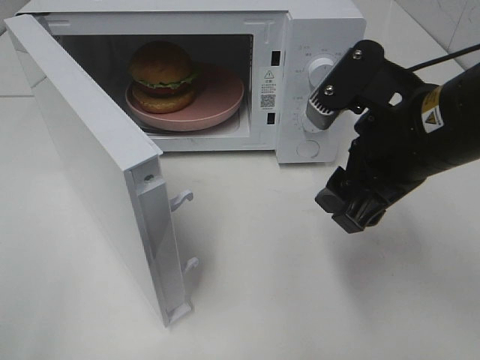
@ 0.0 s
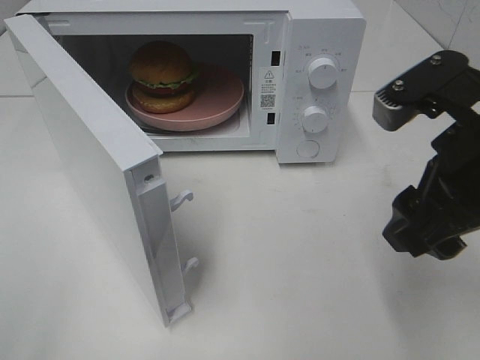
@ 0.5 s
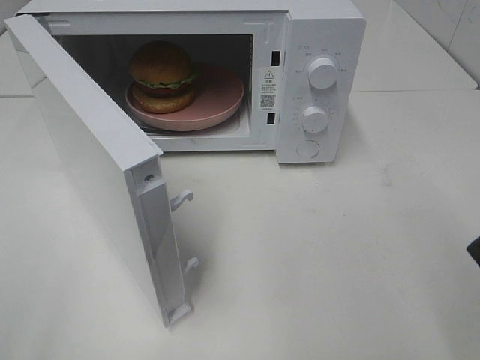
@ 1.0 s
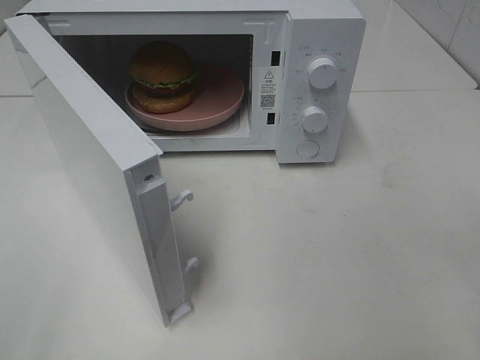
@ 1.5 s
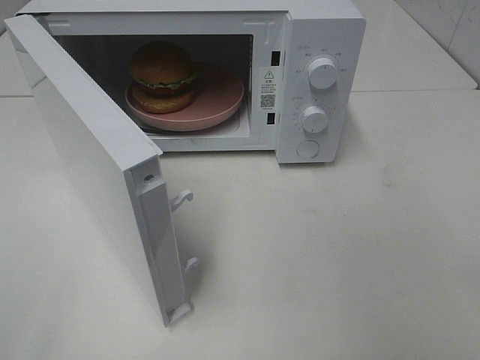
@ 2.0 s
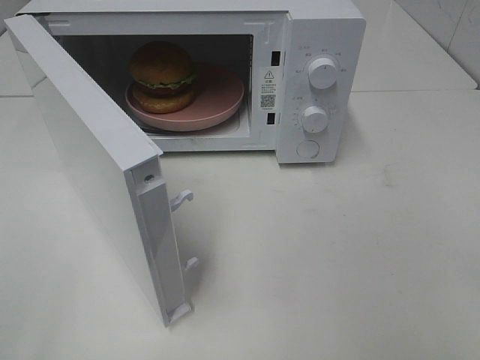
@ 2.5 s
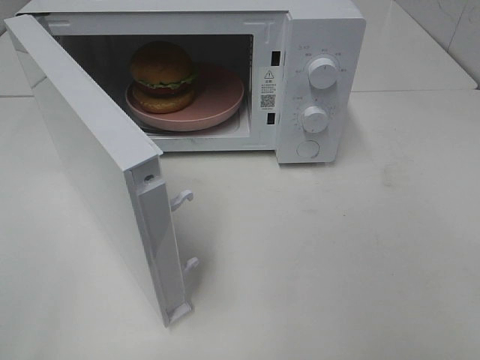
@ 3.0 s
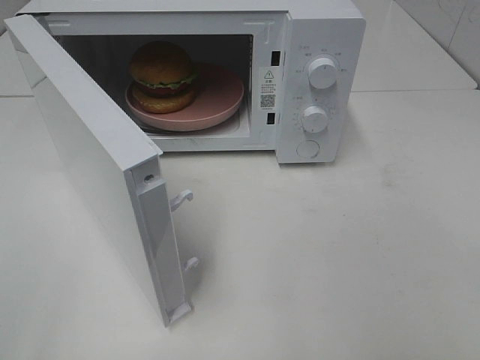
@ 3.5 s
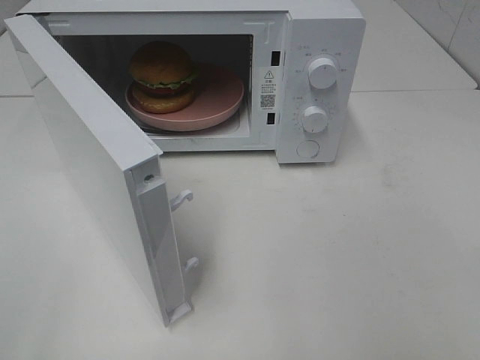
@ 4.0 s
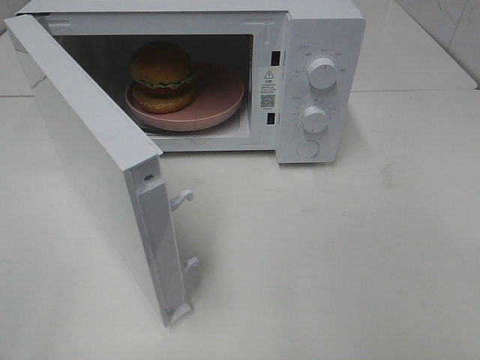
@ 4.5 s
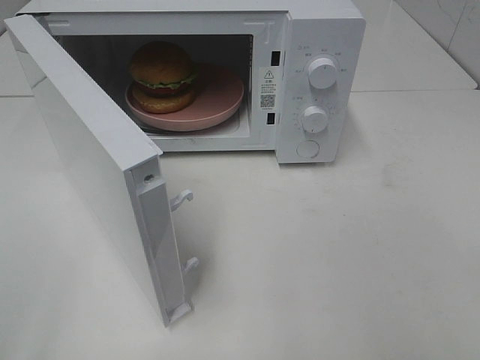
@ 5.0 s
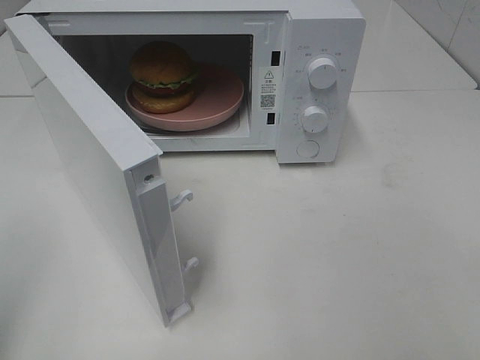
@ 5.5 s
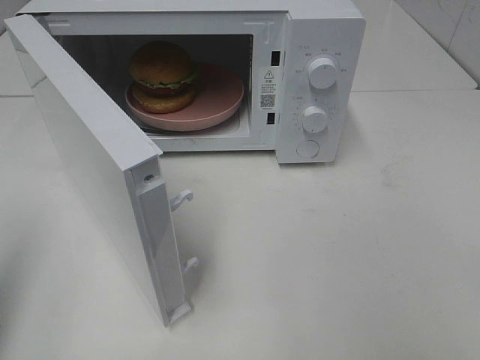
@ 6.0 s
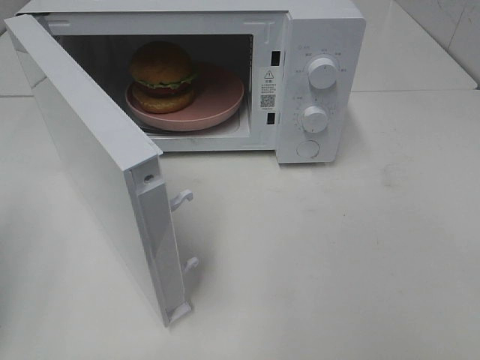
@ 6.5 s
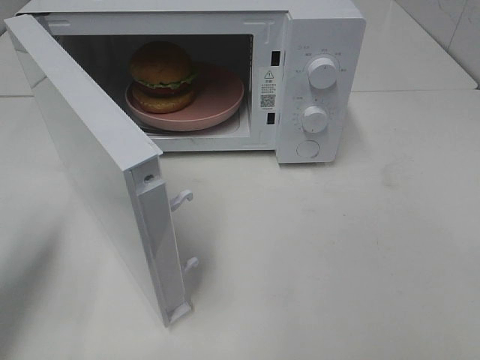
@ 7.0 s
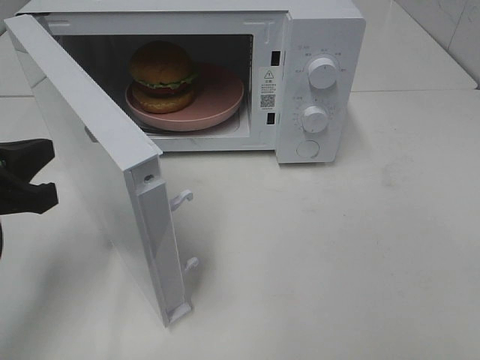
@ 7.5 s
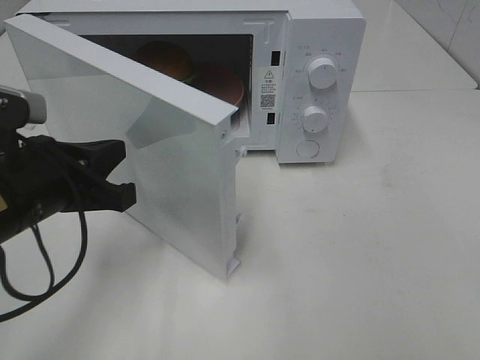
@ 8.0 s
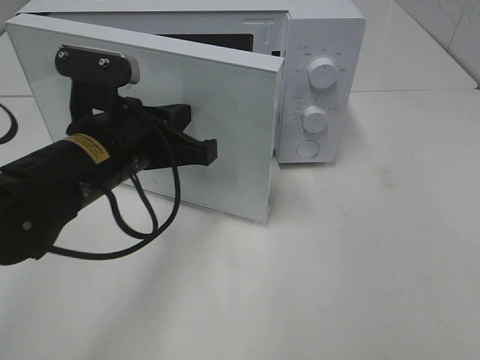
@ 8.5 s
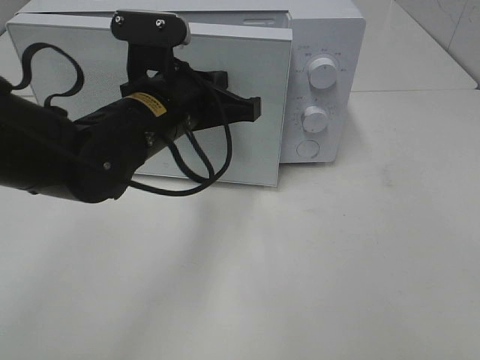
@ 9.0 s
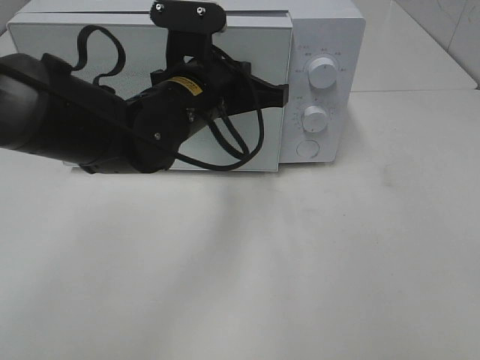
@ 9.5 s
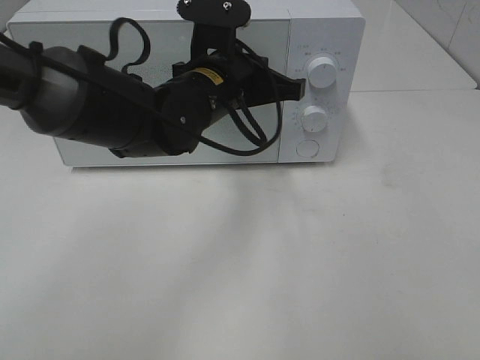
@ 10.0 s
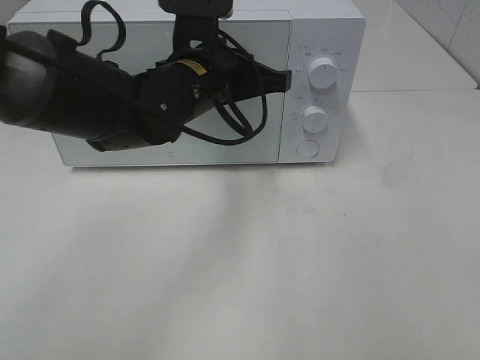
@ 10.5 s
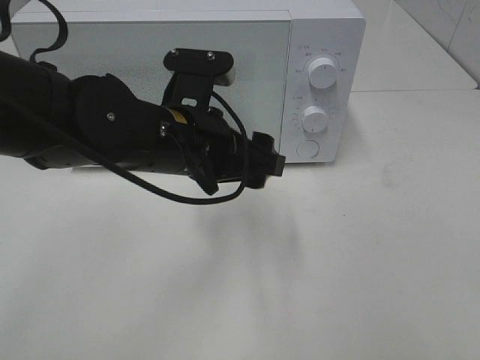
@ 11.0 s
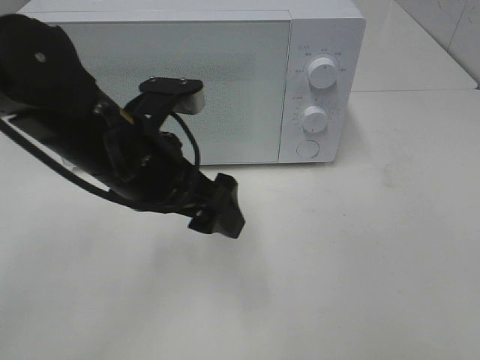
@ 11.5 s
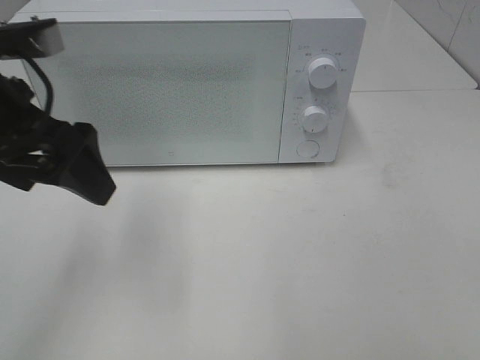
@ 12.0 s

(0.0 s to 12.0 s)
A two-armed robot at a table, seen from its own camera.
Task of the whole recording: Heat the burger.
Step, 0.0 s - 10.5 s: Left hand: close the microwave door.
0.0 s - 2.0 s: The right gripper heads backward and to the right, covering about 25 cm.
4.0 s - 6.0 s: The left gripper moves forward, roughly 10 cm, and closes up.
6.0 s - 8.0 s: The left gripper shifts about 20 cm to the right, downward and forward.
8.0 s - 10.0 s: The left gripper travels to the right and forward by some 20 cm.
10.0 s - 12.0 s: The left gripper travels to the left, backward and upward by approximately 25 cm, and opens up.

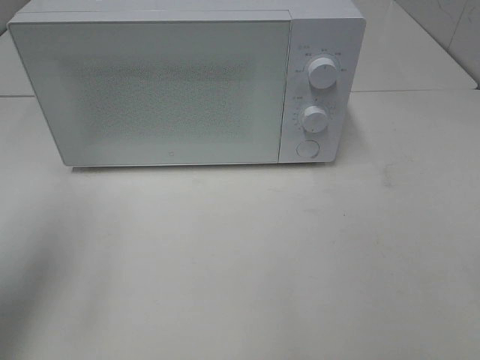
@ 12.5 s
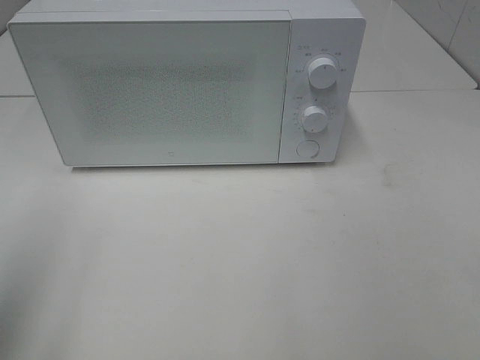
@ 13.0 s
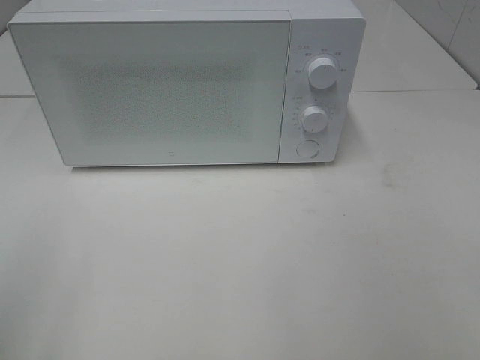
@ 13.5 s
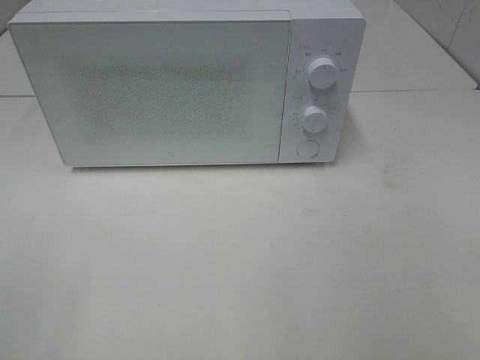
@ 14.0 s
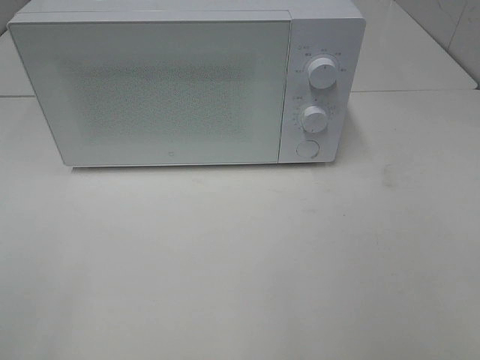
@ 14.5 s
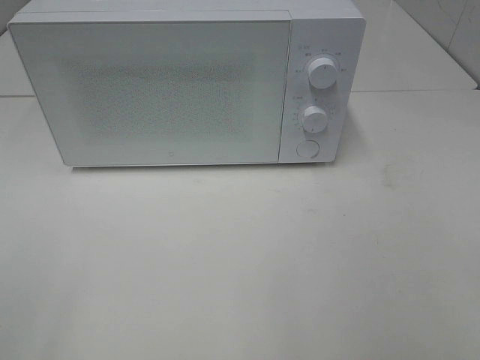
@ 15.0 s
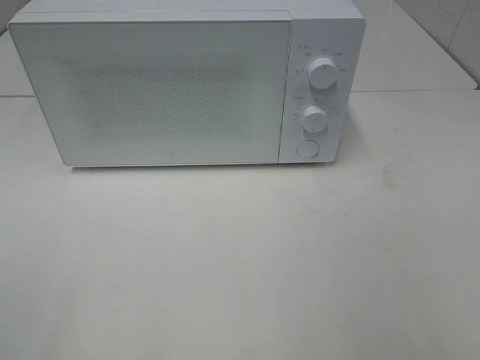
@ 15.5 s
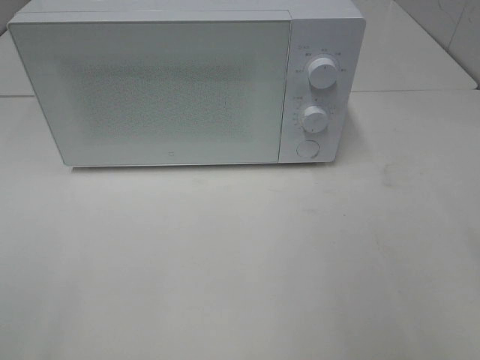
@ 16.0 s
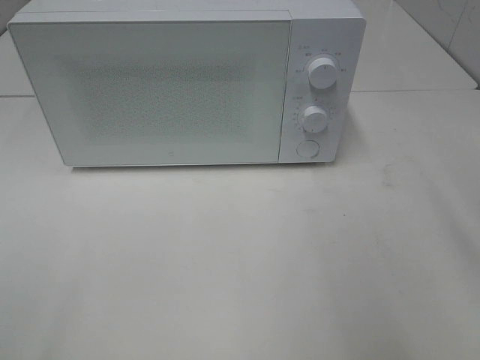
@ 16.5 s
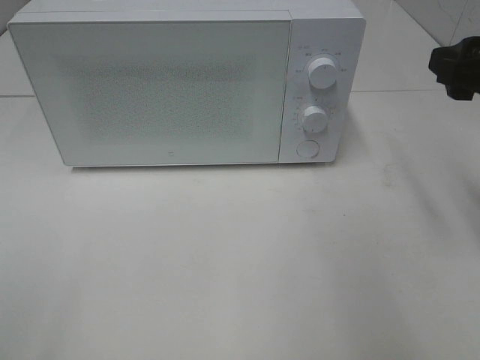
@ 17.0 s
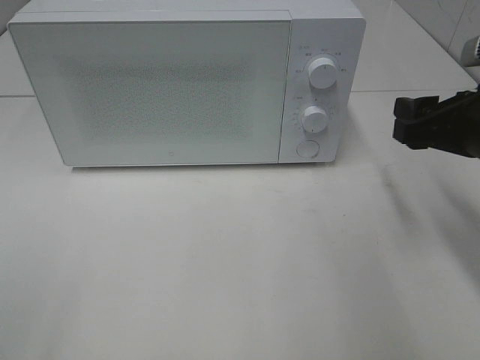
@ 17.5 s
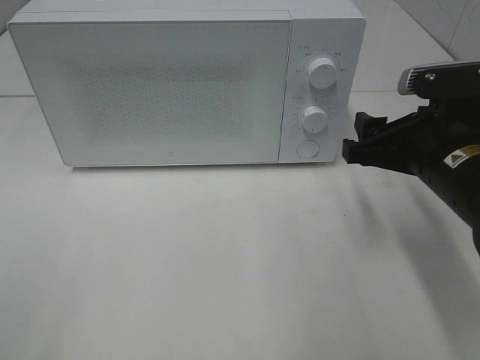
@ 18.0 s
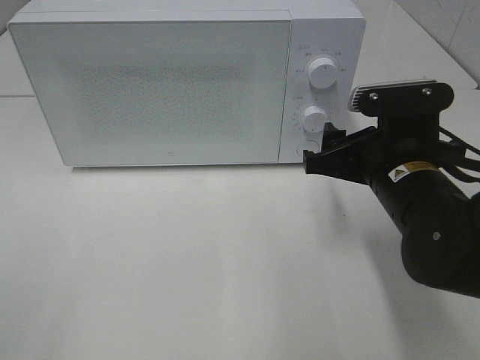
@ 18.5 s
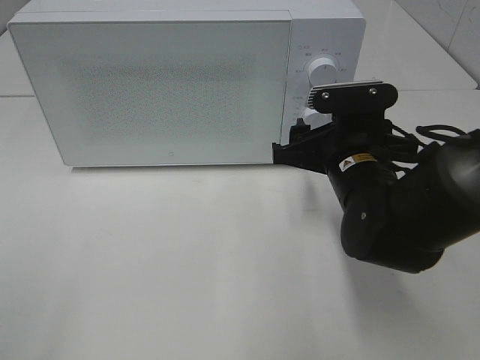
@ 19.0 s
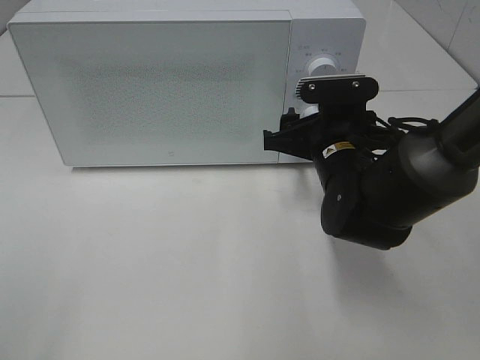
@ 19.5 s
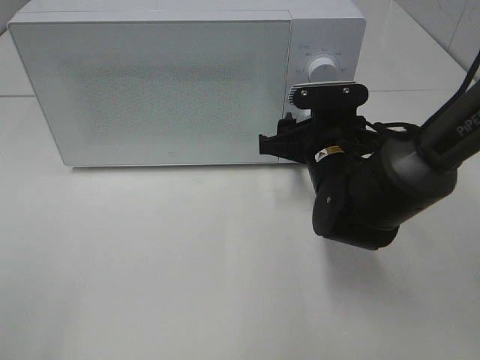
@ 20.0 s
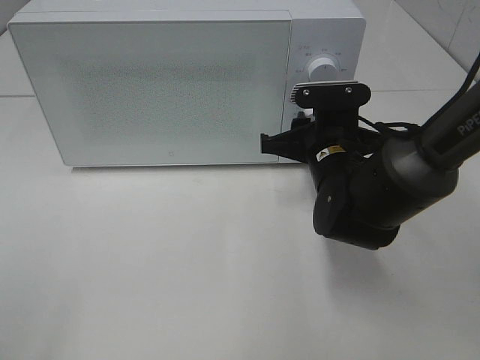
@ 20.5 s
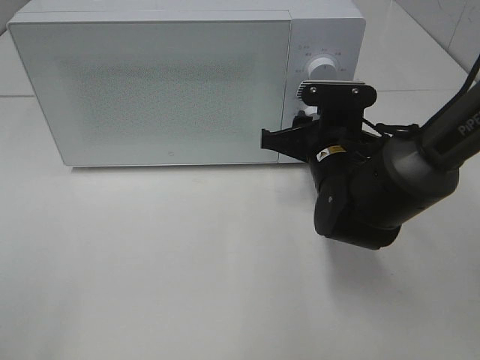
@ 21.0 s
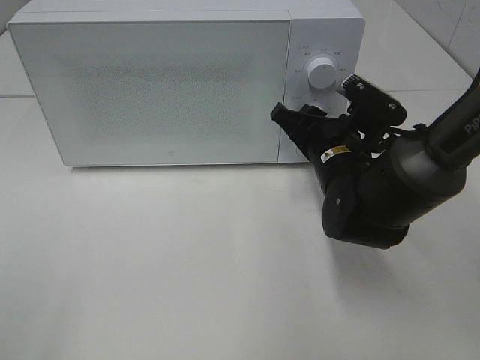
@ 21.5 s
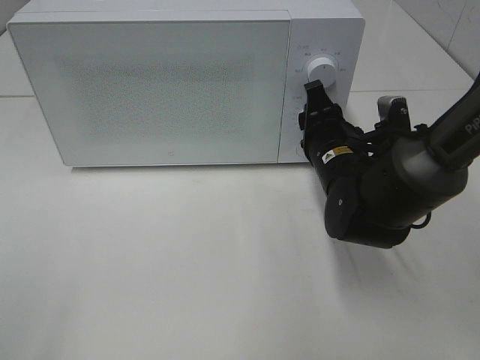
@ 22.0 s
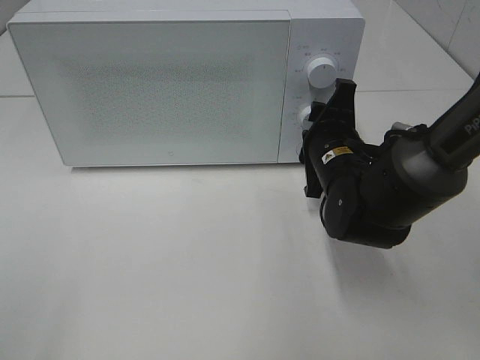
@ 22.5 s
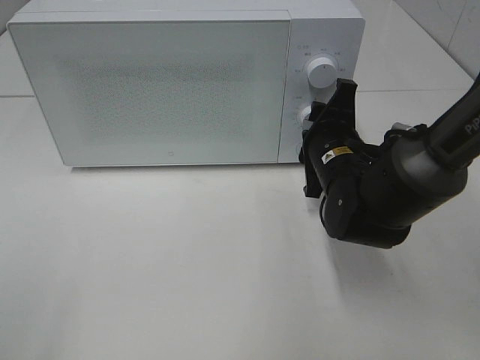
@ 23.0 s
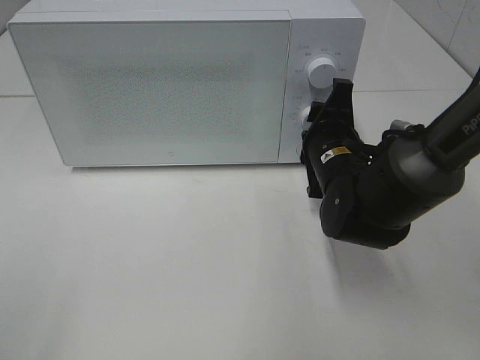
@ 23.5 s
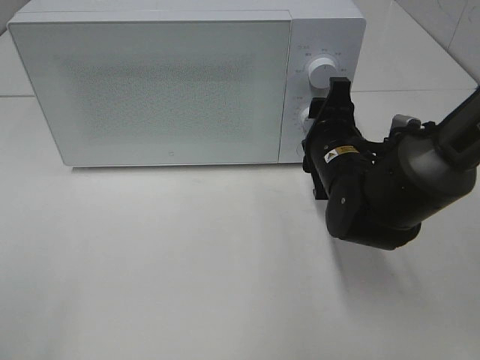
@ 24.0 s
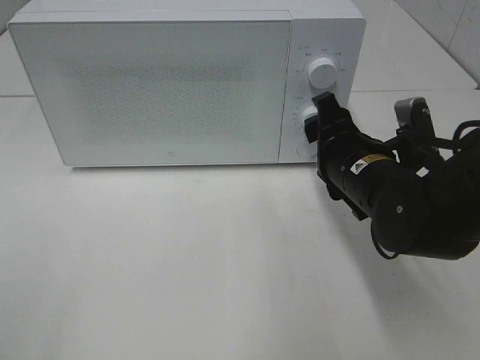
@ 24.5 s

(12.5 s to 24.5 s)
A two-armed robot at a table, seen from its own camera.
Task of the whole recording: Heat the burger.
Step, 12.5 s - 23.5 s: Right hand: twist timer button.
12.5 s - 14.5 s: The left gripper travels backward by about 20 cm.
16.5 s - 18.5 s: The right gripper is displaced downward, to the left and forward by about 20 cm.
18.5 s - 20.5 s: The right gripper shifts about 10 cm forward, and closes.
22.5 s - 24.5 s: The right gripper shifts by about 5 cm.

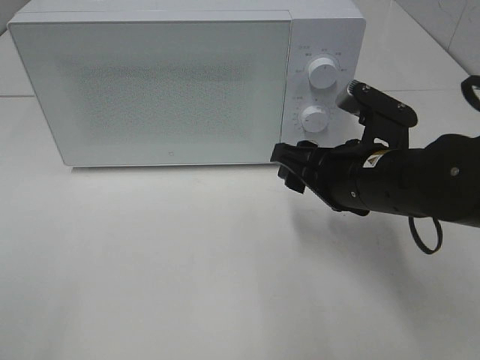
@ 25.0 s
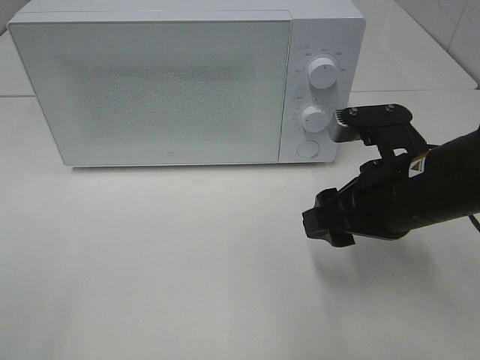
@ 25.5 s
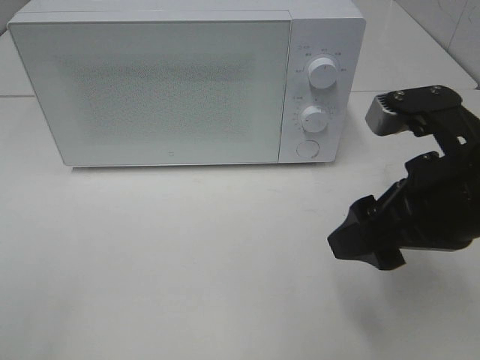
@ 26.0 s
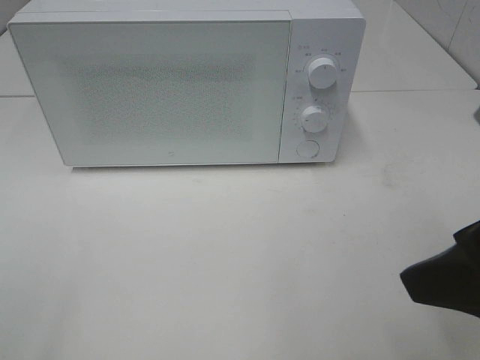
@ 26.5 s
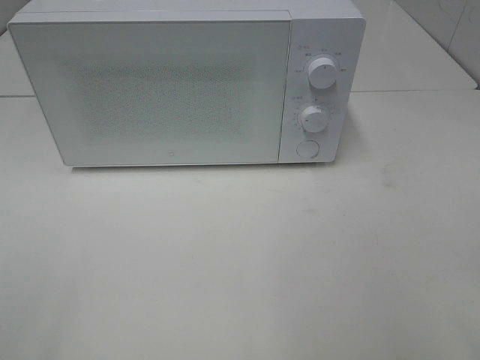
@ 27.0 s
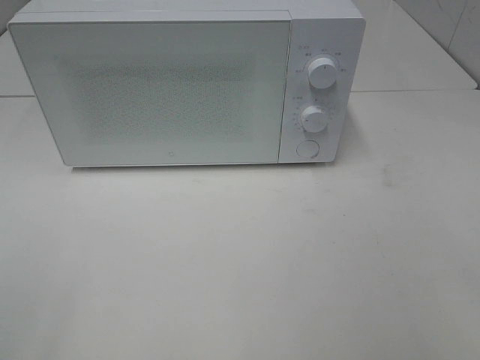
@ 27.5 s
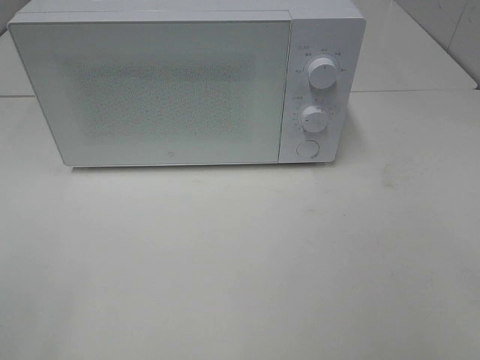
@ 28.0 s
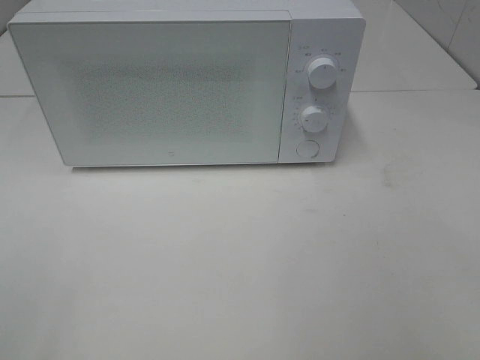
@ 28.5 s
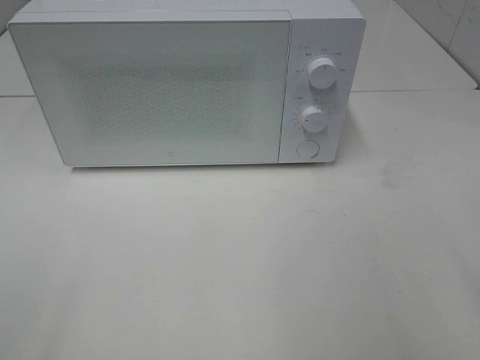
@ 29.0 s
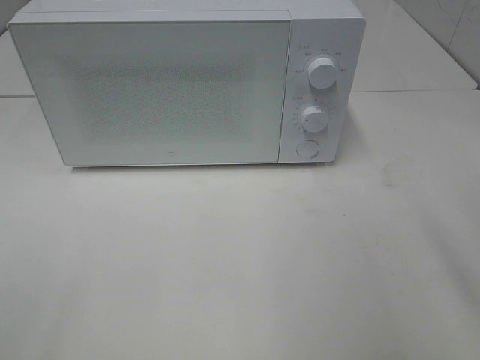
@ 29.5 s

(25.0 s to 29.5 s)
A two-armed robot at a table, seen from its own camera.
Task of the whole recording: Heat the burger.
25.0 s - 27.0 s: The right gripper goes about 25 cm backward, upward and to the right.
